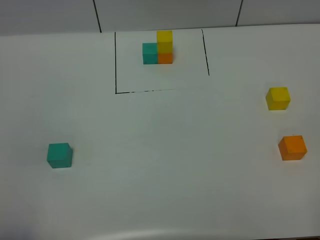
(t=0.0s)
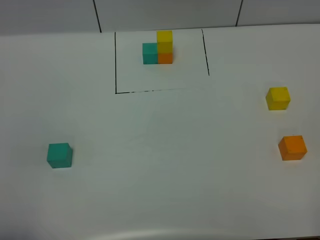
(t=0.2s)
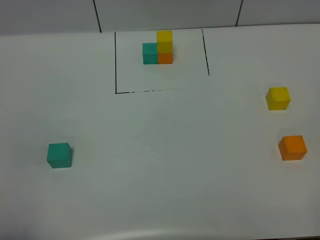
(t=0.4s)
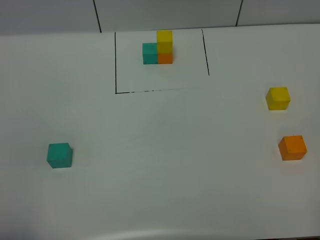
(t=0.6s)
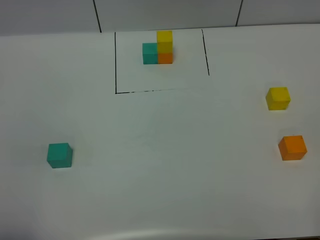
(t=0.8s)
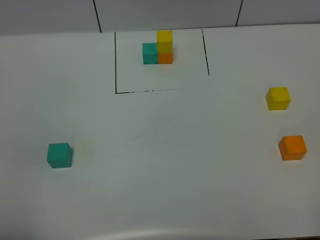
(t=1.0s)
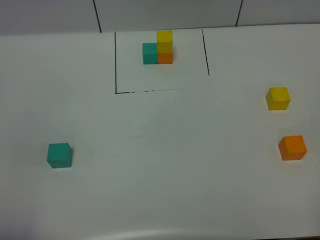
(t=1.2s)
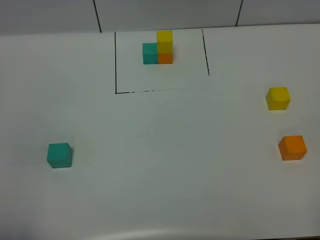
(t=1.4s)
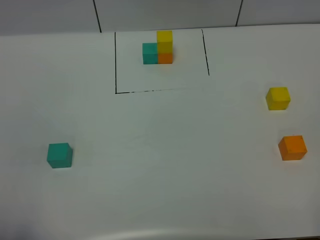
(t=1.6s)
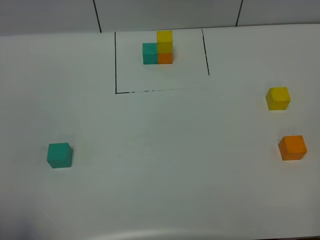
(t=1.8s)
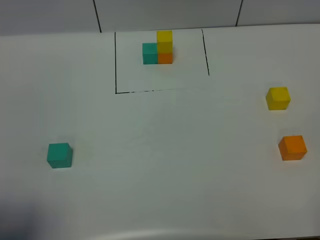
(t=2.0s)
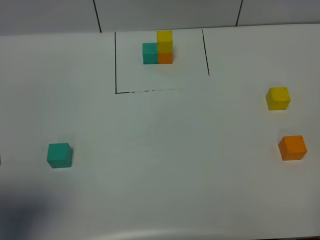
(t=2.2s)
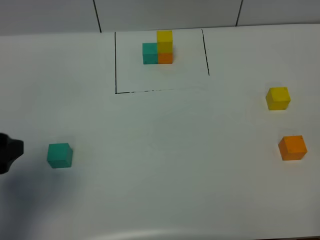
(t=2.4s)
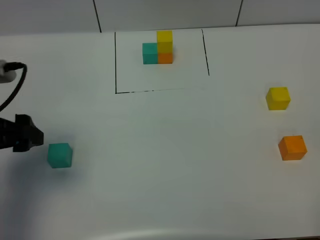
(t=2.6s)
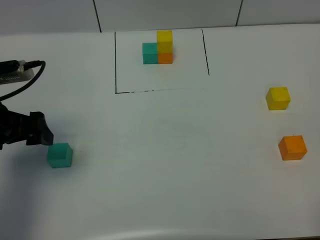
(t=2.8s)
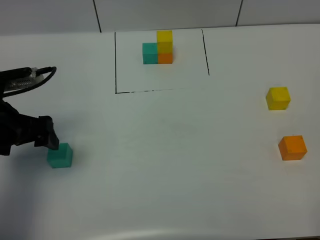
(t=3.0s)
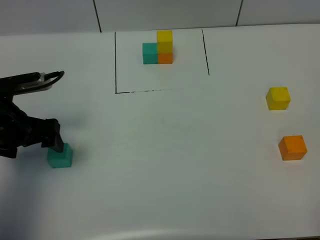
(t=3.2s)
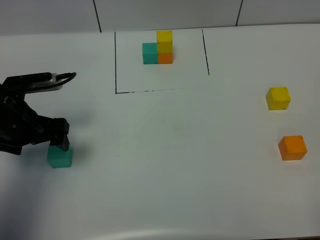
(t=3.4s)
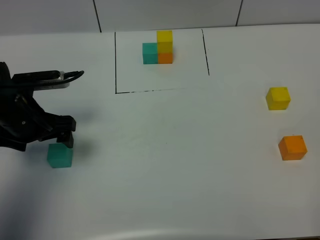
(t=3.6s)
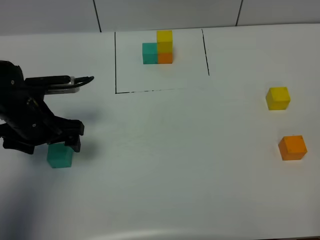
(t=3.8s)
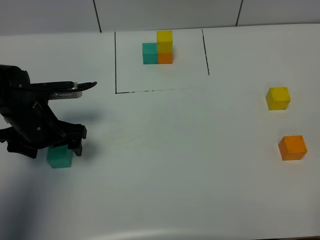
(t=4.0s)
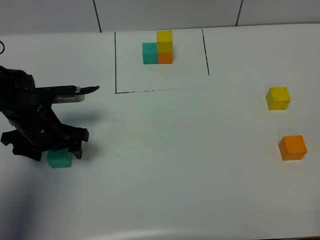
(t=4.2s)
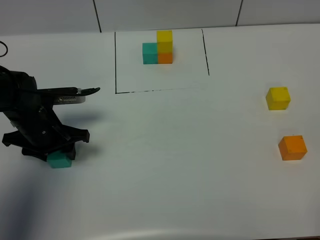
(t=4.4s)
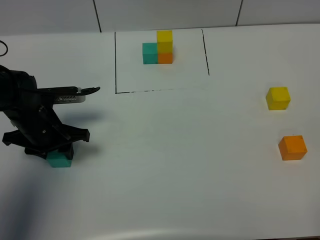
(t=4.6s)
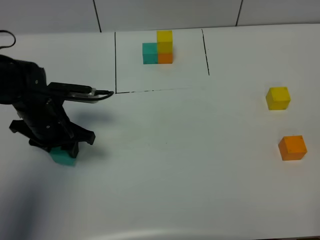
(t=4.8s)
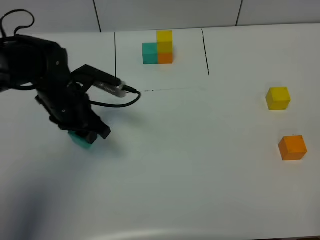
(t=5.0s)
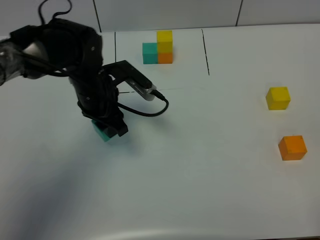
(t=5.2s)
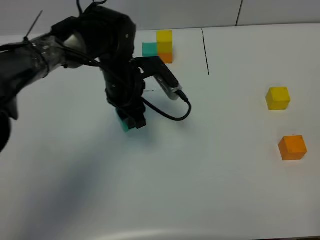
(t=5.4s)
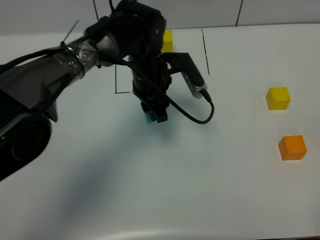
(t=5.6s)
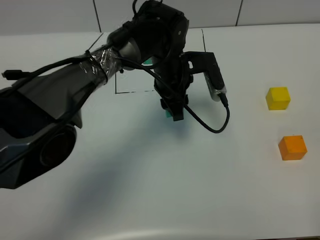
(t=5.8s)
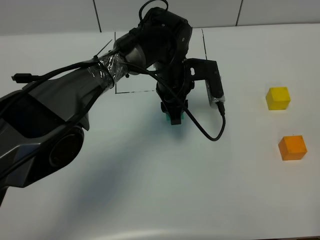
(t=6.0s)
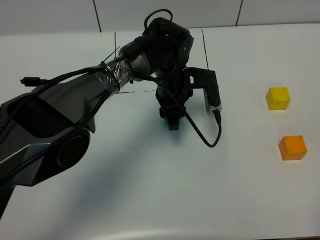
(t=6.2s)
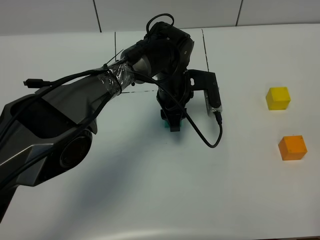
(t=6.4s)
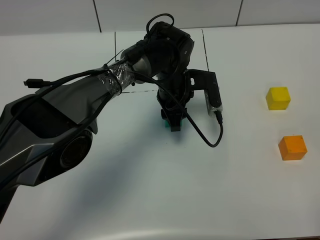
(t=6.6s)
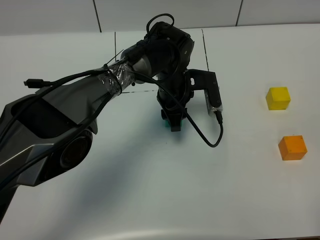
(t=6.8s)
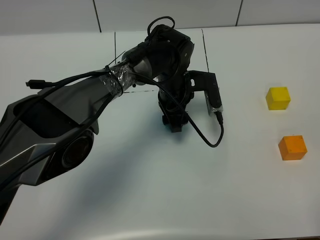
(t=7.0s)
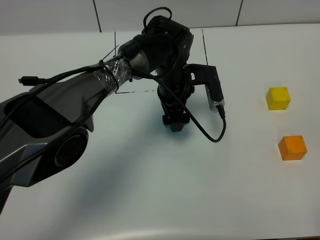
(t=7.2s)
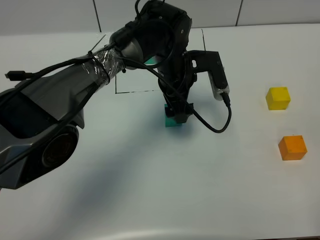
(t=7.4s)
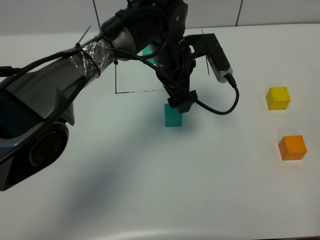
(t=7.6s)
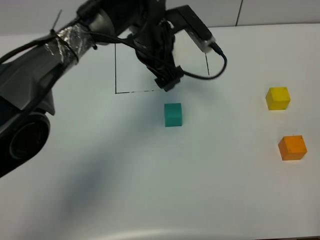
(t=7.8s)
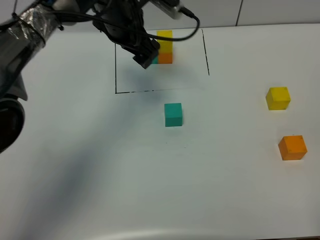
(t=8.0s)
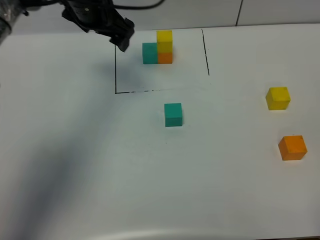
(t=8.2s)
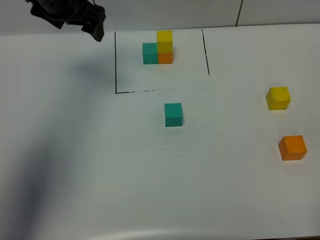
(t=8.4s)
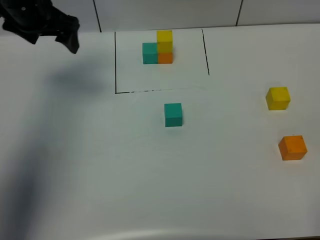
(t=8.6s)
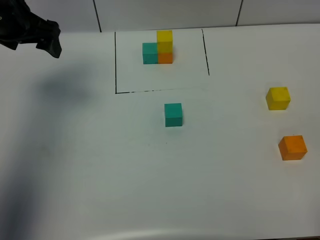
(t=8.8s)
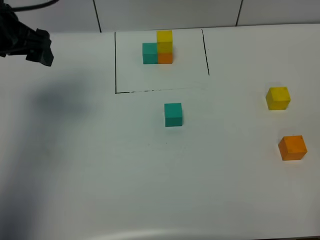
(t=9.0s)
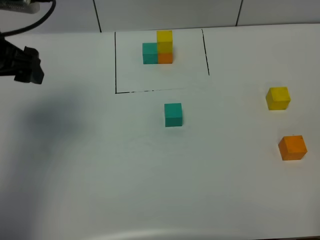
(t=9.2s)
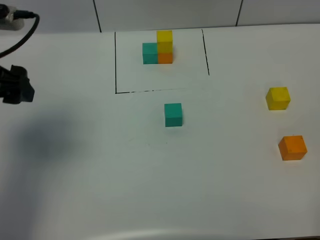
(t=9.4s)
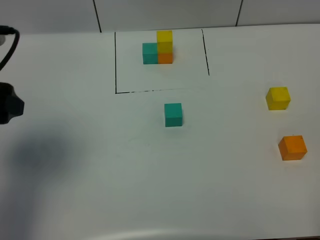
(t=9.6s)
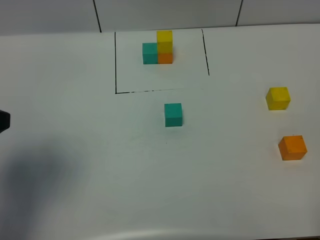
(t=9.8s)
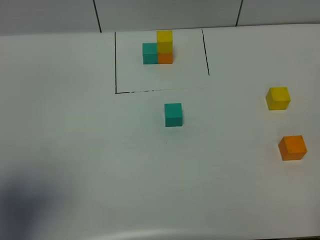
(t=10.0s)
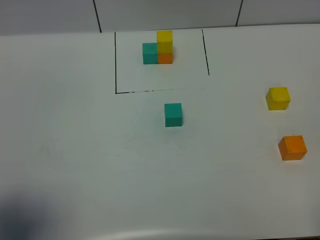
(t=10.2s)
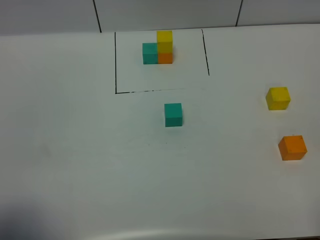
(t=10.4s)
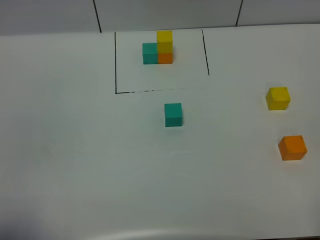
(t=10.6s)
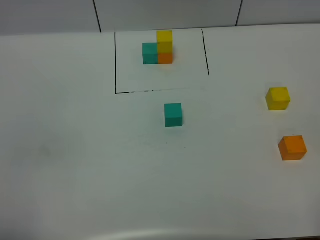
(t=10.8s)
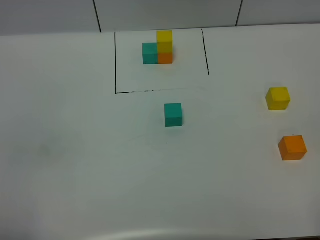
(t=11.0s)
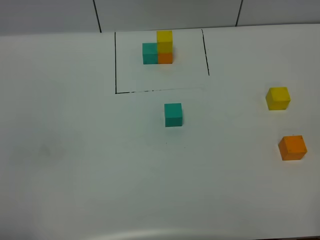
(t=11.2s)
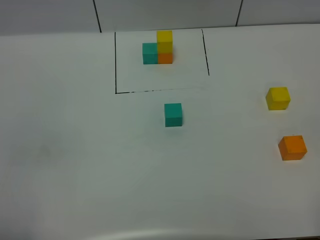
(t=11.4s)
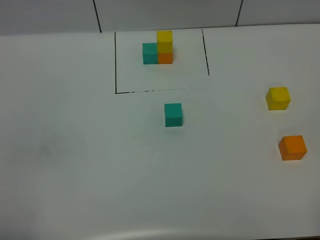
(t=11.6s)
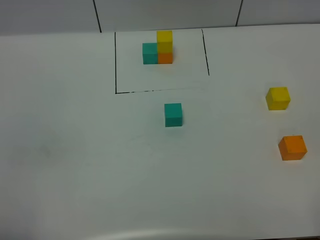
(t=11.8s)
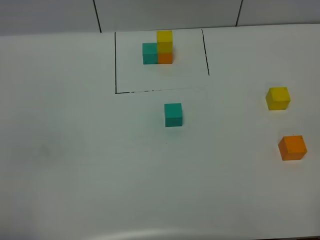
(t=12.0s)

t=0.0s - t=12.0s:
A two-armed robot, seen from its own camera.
Task of the whole recording: According to the building block template in front, assemble the scattered blocks together.
Step, t=2.2s - t=7.6s: Put the green cube in the center of the table.
t=1.6s - t=3.0s: The left gripper heads forward, covering about 25 cm, and opens.
t=3.0s - t=4.4s: The left gripper shifts about 10 cm downward, and closes.
t=4.4s - t=6.0s: The left gripper travels to the right by approximately 25 cm.
t=6.0s - t=7.6s: The left gripper goes some 5 cm upward, and opens up.
t=7.6s - t=9.0s: The left gripper moves to the left, approximately 25 cm.
t=9.0s - t=10.4s: The left gripper travels backward by roughly 30 cm.
t=10.4s - t=12.0s: The left gripper changes place by roughly 5 cm.

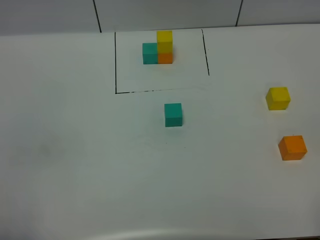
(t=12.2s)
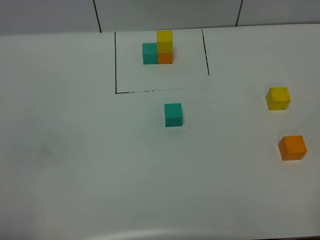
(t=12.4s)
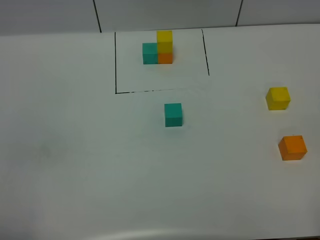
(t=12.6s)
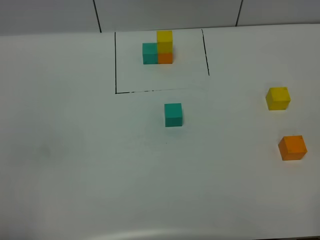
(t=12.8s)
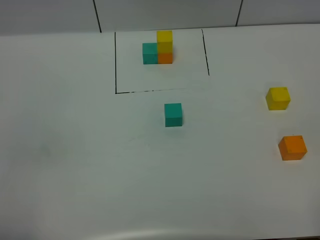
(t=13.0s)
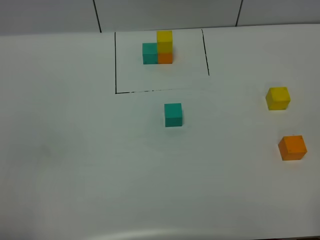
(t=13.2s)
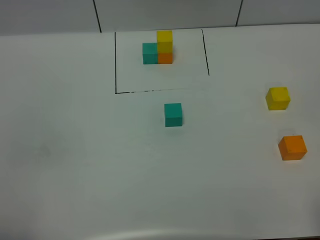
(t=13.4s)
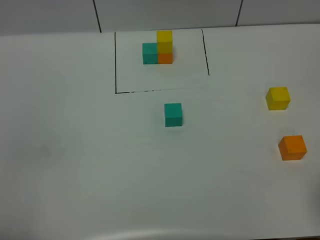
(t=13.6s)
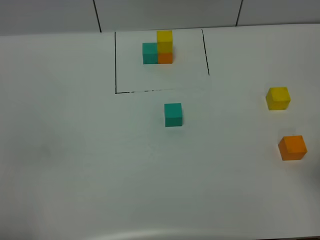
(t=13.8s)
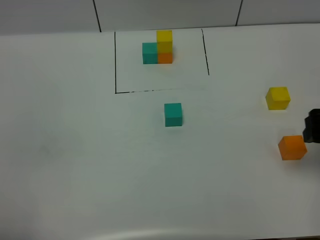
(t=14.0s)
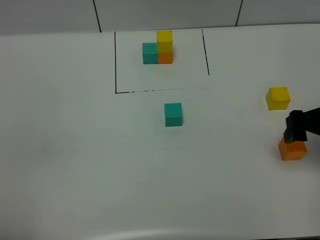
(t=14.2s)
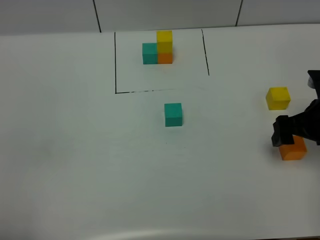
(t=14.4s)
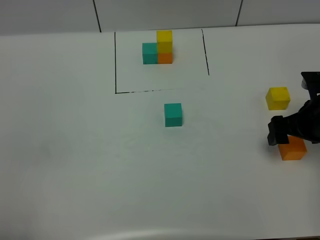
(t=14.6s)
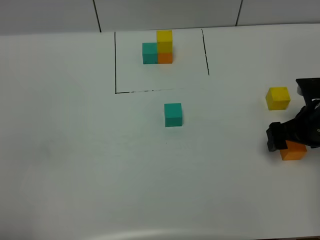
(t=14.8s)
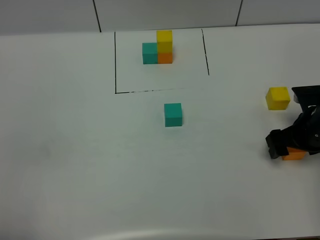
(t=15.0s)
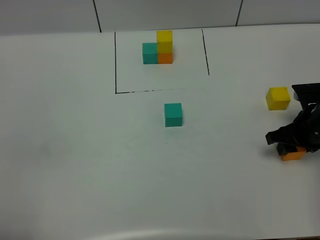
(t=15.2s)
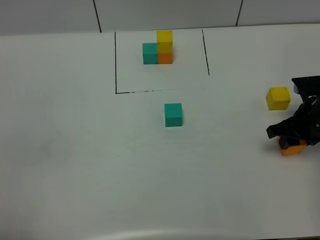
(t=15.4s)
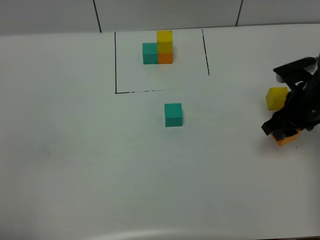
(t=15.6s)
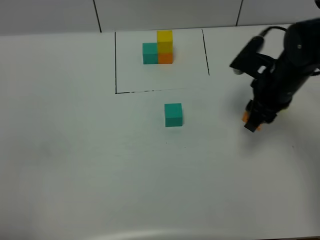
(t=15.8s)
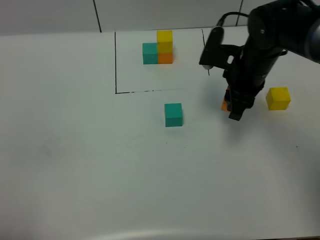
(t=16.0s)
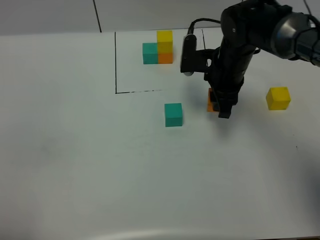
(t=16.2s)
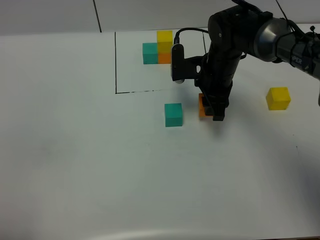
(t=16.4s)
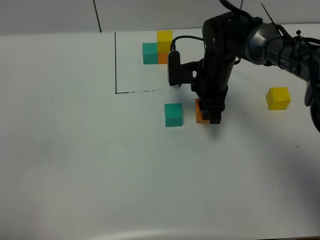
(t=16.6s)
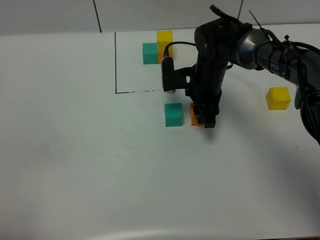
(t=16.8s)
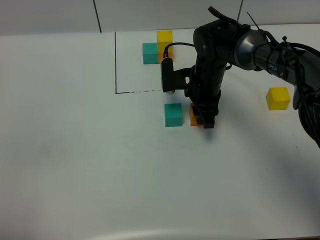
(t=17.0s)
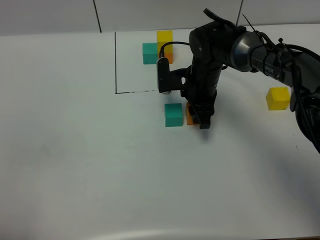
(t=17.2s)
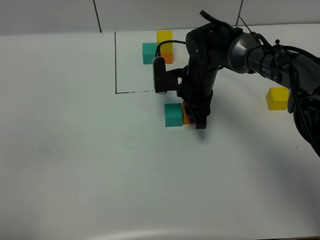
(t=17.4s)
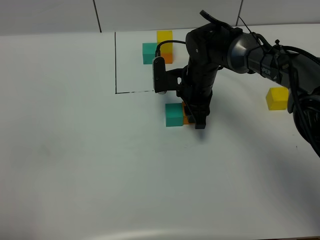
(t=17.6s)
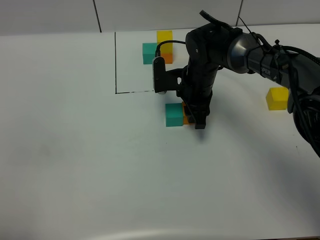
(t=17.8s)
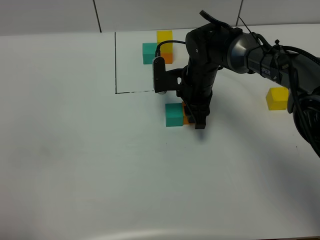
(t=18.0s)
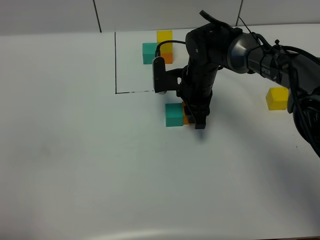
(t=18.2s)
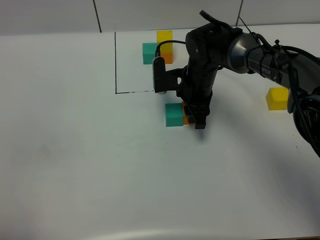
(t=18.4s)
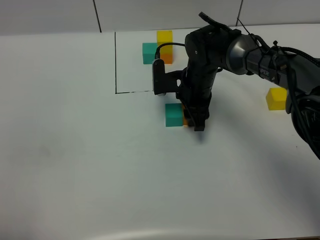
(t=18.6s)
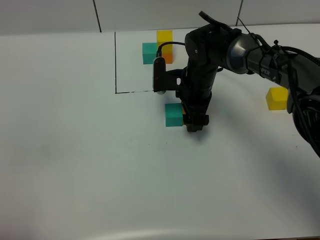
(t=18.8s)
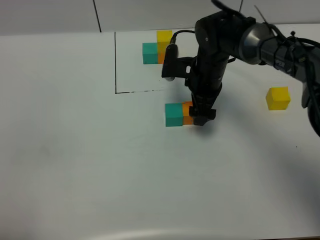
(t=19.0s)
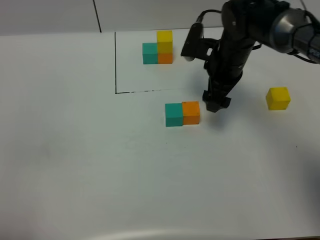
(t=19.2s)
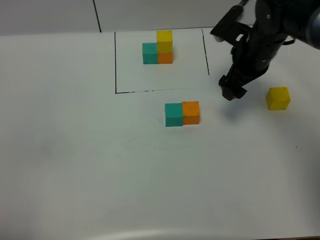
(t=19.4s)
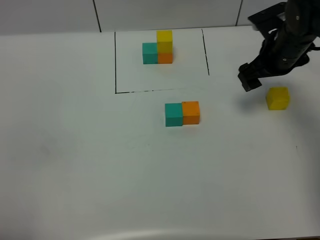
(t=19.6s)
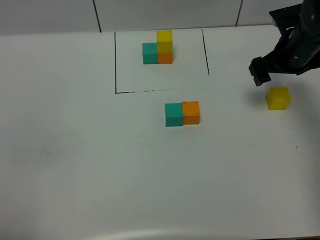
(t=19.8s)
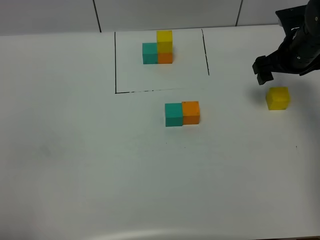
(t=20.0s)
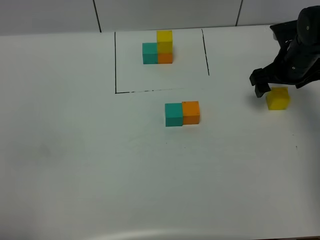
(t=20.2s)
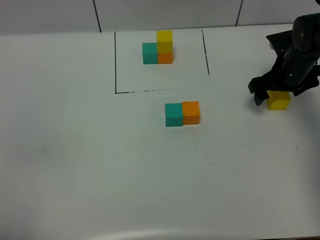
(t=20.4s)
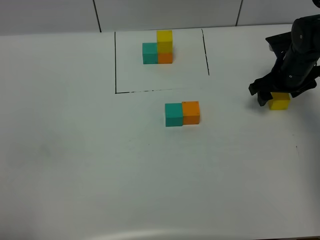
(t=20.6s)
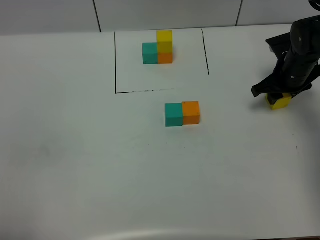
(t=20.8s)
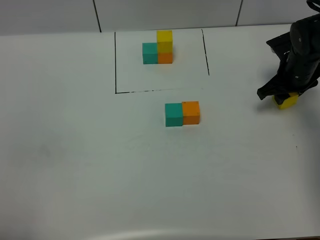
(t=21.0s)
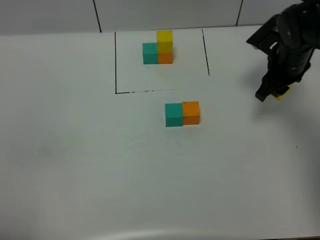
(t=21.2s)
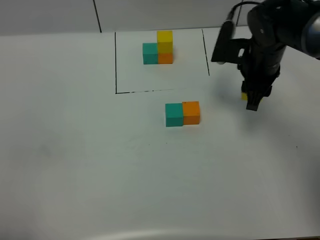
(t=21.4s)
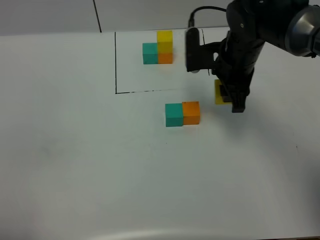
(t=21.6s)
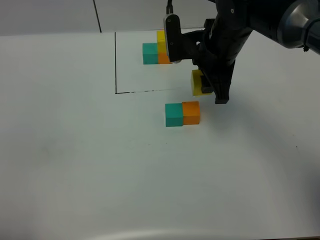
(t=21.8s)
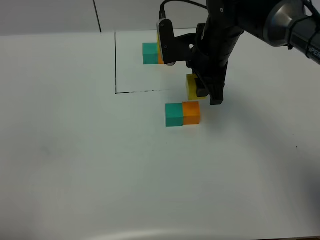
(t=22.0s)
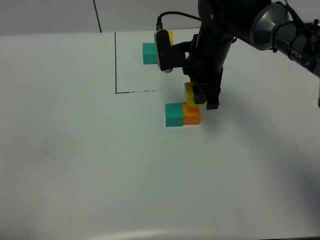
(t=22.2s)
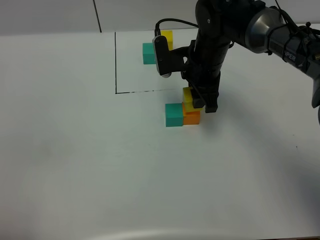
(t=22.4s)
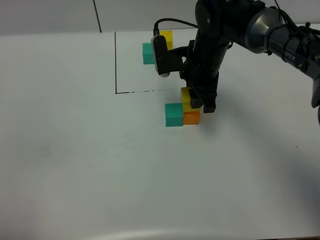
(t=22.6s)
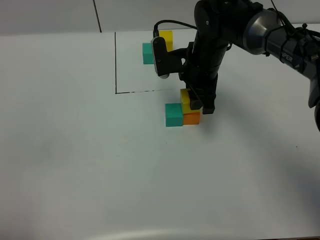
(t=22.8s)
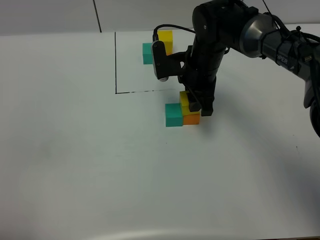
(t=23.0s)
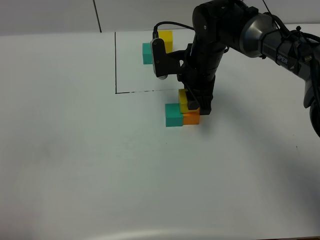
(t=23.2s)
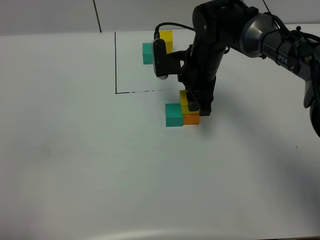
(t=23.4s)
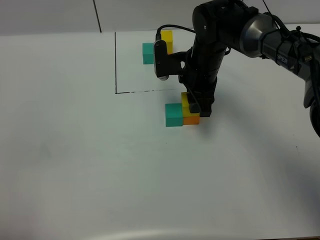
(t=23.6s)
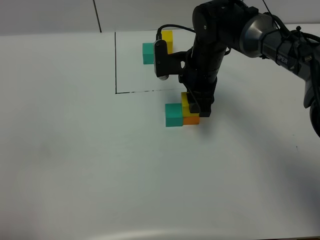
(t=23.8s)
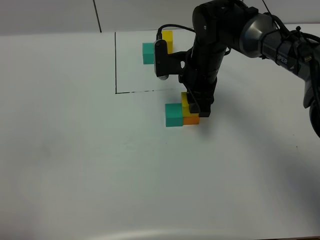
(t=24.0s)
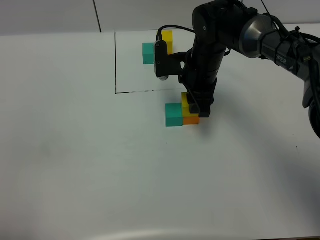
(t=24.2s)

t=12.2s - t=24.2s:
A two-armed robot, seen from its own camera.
Task of the whole recording: According to the building block template in front, assemble the scattered blocks together.
Step, t=12.2s - t=19.2s: Put the orange cube on the right of the green cube.
t=13.8s - t=15.2s: The right gripper goes some 20 cm downward and forward, and closes up.
t=15.2s - t=16.6s: The right gripper shifts roughly 20 cm to the left and forward.
t=16.6s - t=18.2s: There are only small adjustments of the grippers.
t=18.2s - t=19.8s: The right gripper shifts about 20 cm to the right, and opens.
t=19.8s - t=21.2s: The right gripper closes up.
t=21.2s - t=22.6s: The right gripper travels to the left by about 15 cm.
t=22.6s - t=24.2s: The grippers make only small movements.
